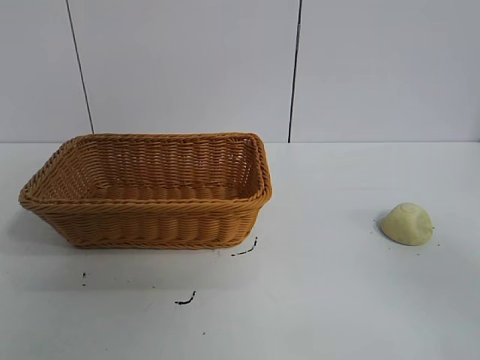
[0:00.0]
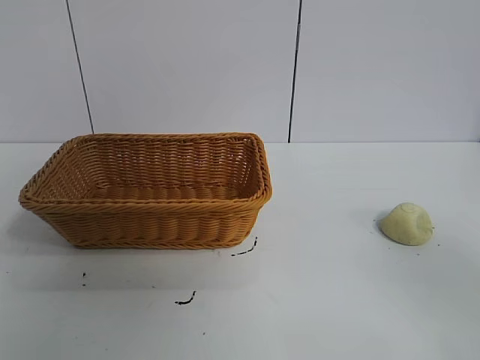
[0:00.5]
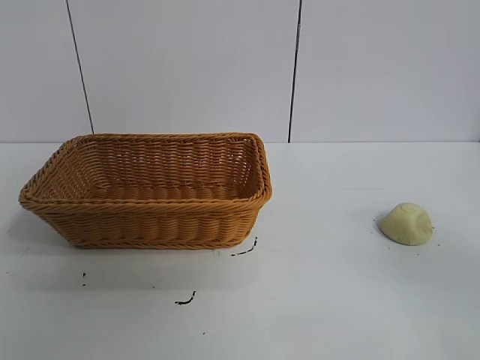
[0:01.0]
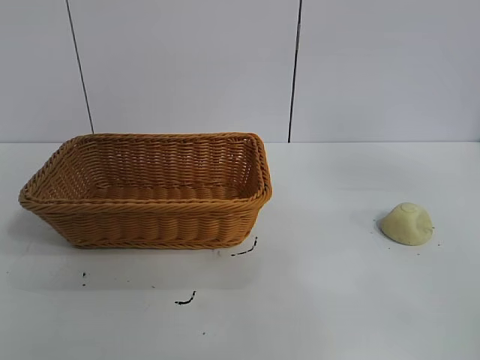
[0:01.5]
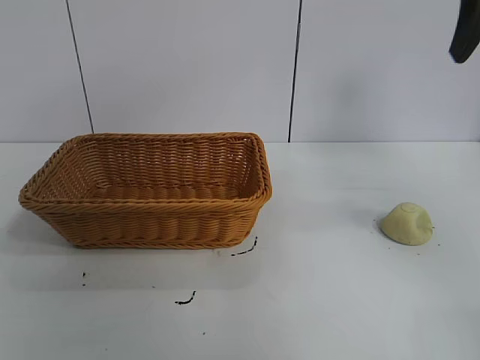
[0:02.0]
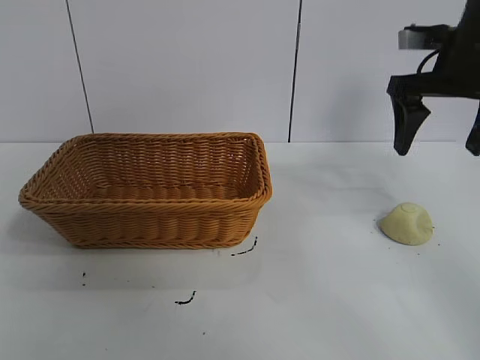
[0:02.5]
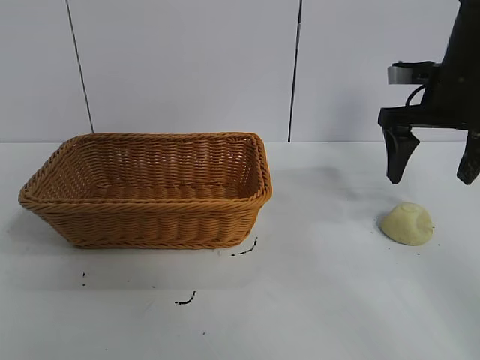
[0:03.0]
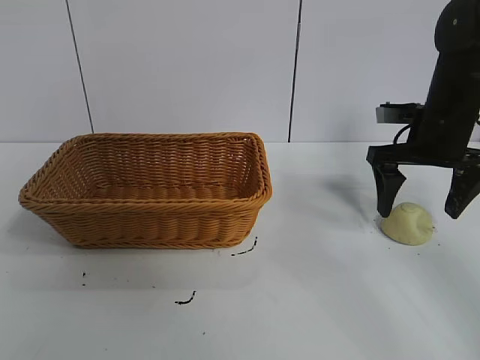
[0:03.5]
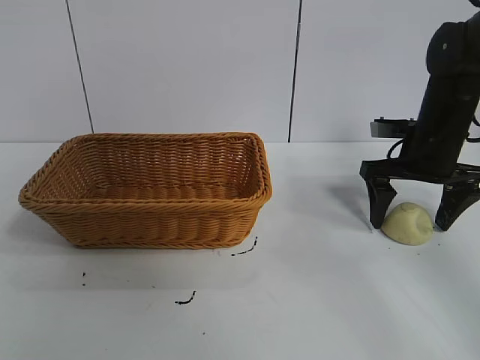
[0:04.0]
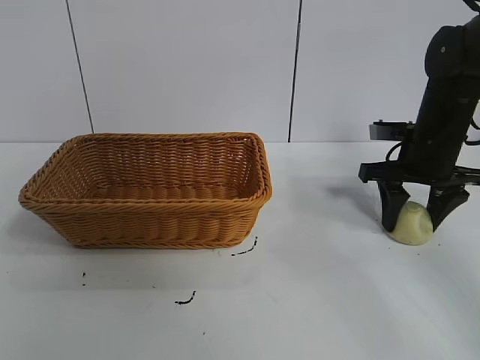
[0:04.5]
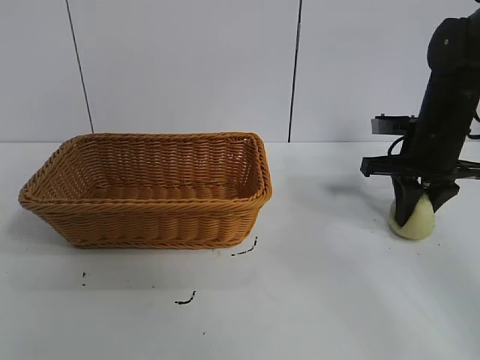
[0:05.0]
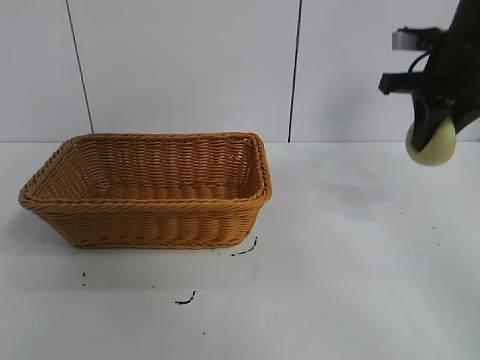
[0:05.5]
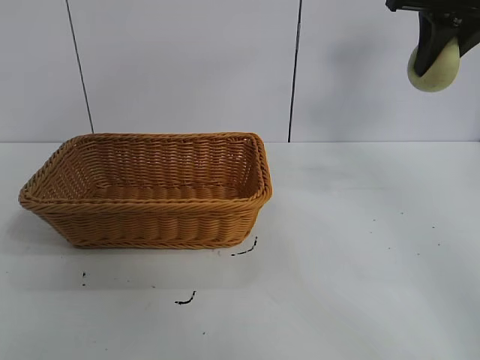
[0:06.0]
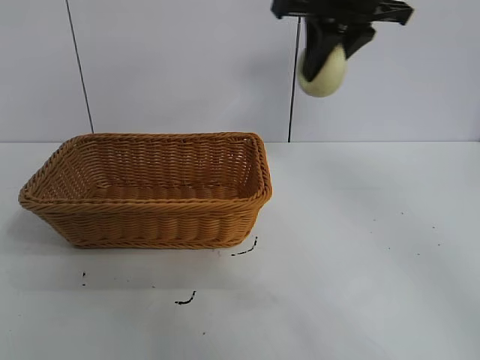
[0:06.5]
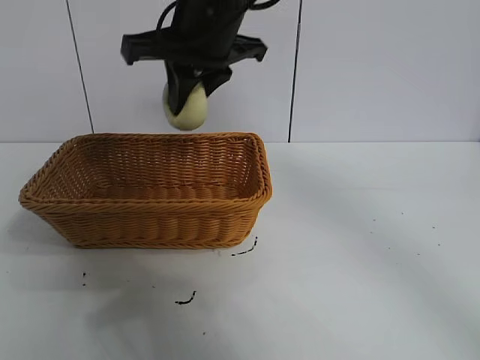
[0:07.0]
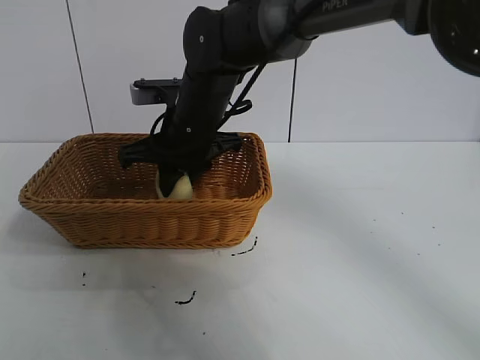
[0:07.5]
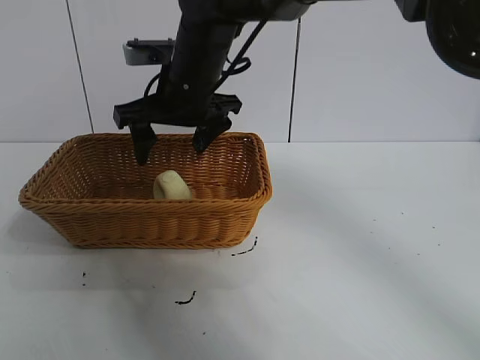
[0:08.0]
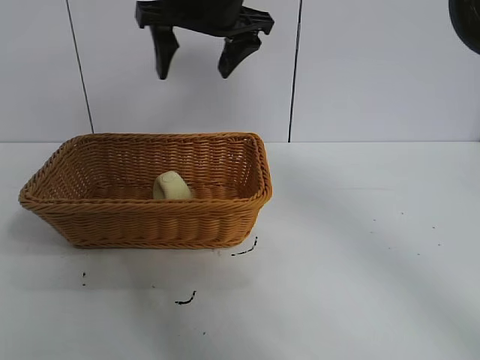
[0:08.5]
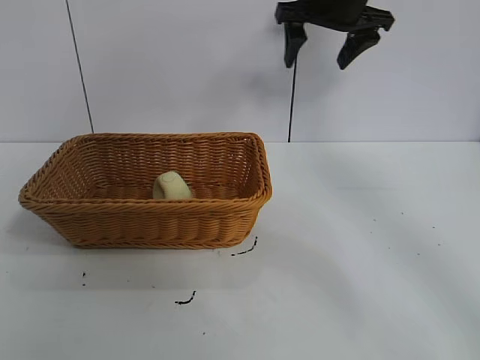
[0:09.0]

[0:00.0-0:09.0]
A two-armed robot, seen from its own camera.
Task of the whole recording: pick up the egg yolk pastry and put it into the basket.
Step, 0:01.0 to 0:04.5: Grasp egg yolk pastry with right gripper.
Step, 0:05.0 to 0:07.5: Place the egg yolk pastry in the basket with right gripper.
